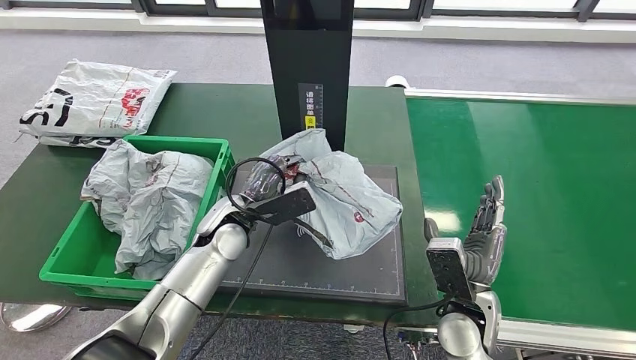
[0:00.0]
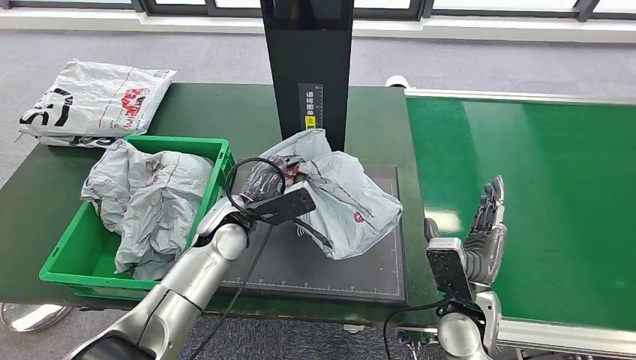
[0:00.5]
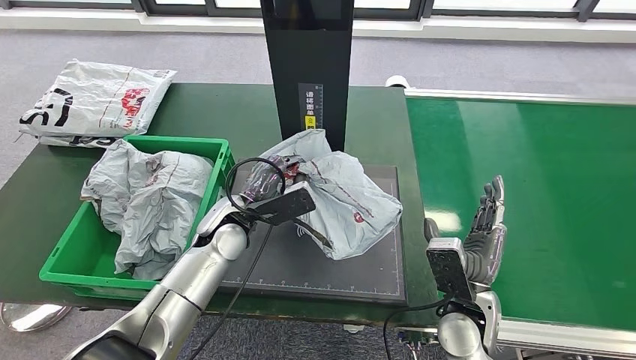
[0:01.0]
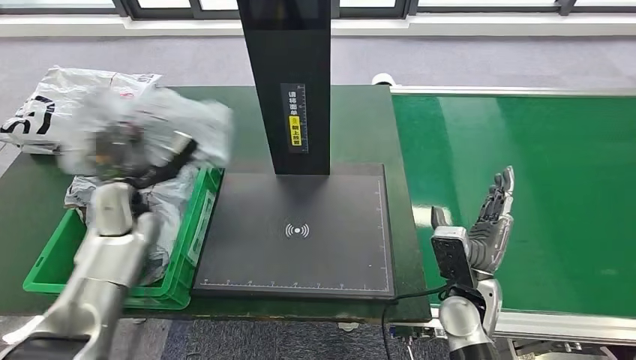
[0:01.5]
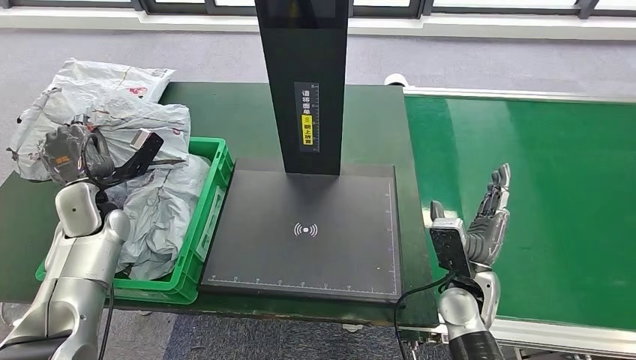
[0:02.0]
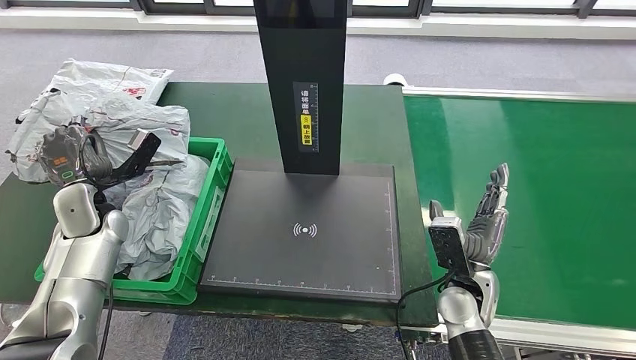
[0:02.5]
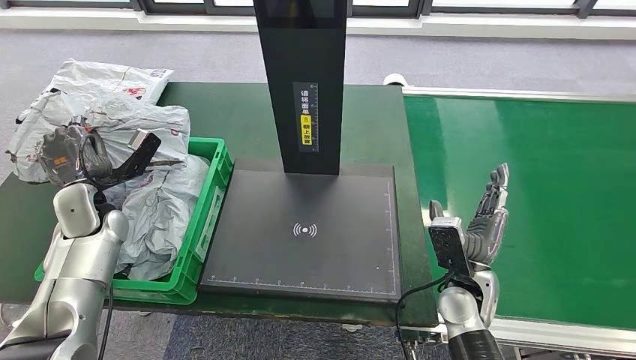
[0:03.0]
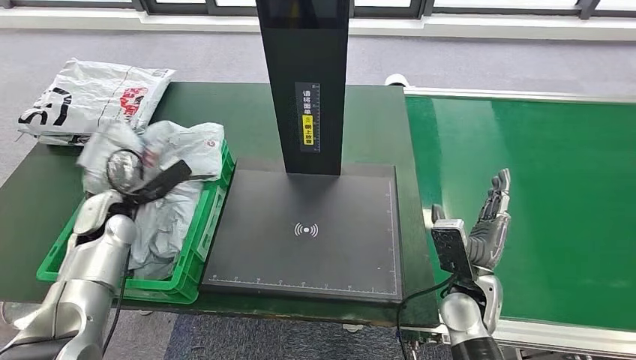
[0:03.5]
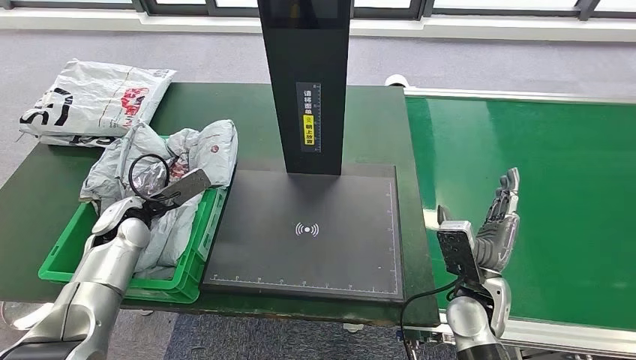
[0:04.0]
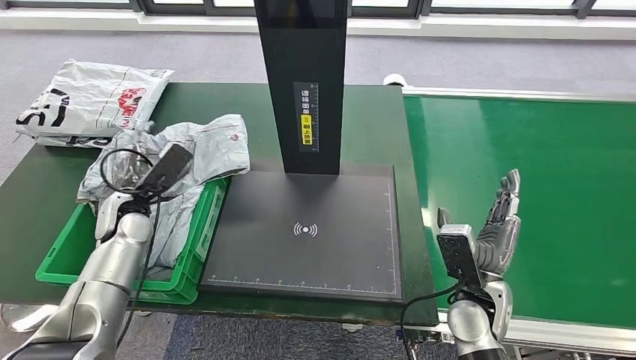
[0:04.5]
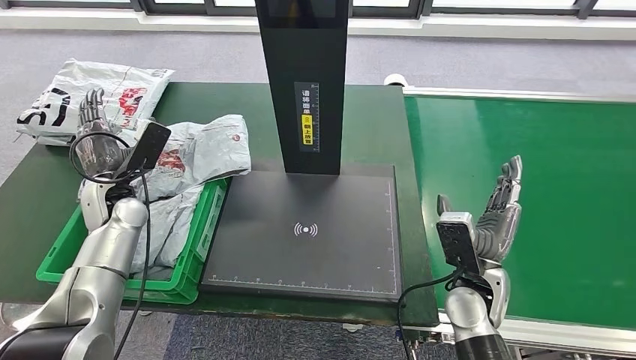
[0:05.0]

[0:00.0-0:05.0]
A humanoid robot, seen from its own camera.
Step, 0:00.0 to 0:05.0: Place the parcel into the delivery box.
